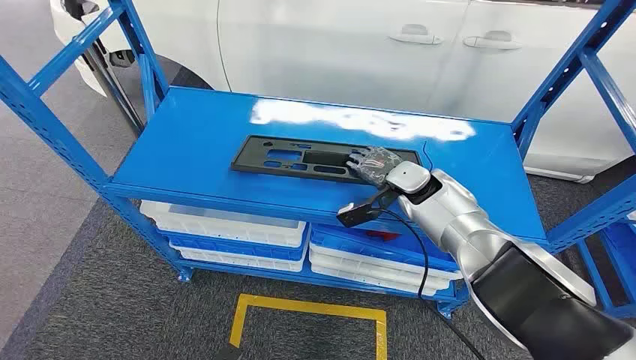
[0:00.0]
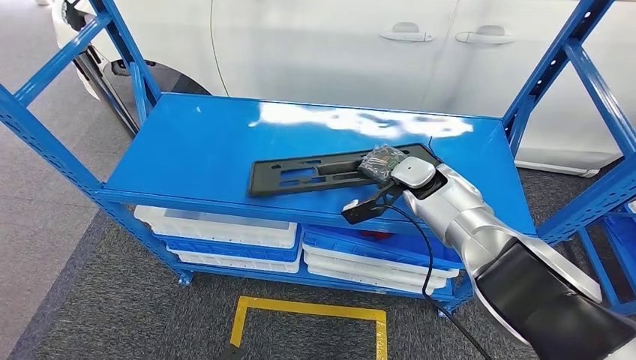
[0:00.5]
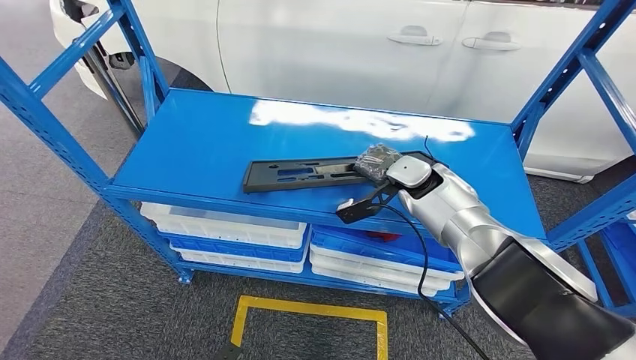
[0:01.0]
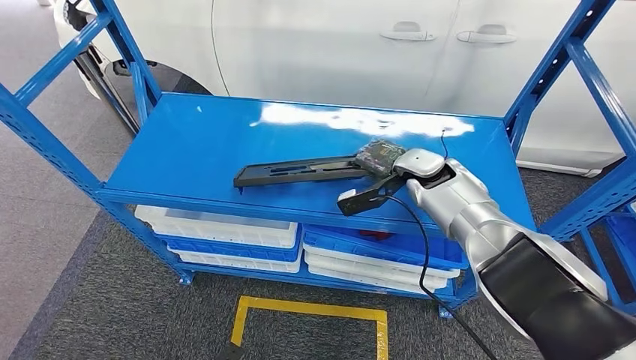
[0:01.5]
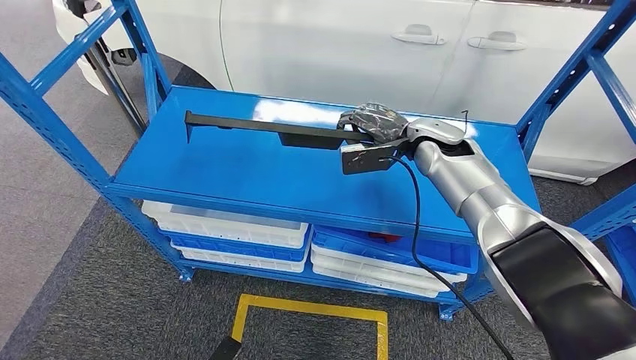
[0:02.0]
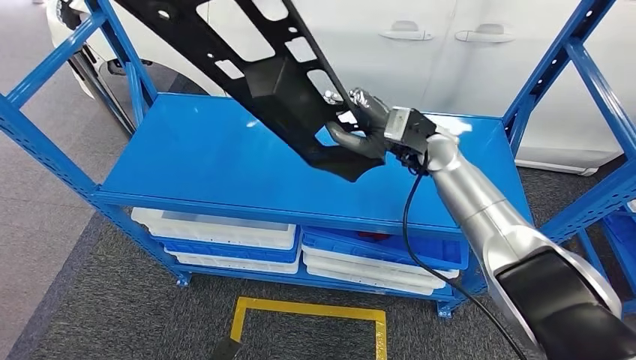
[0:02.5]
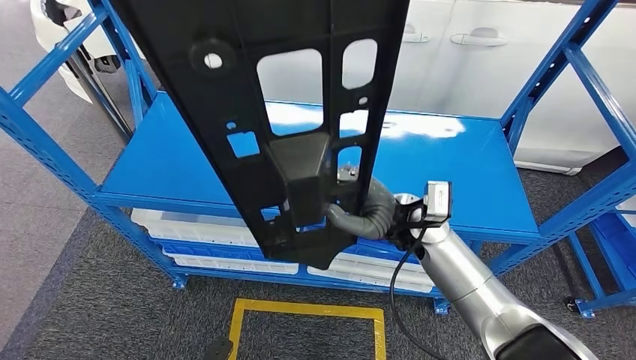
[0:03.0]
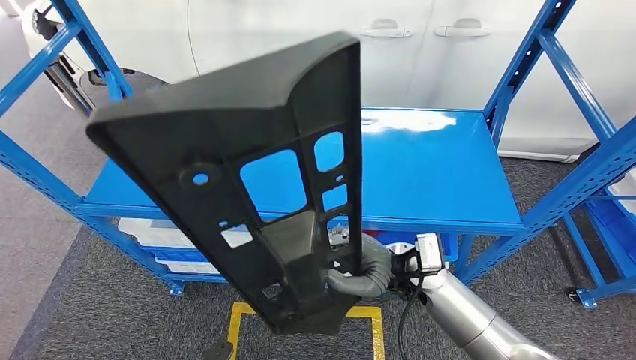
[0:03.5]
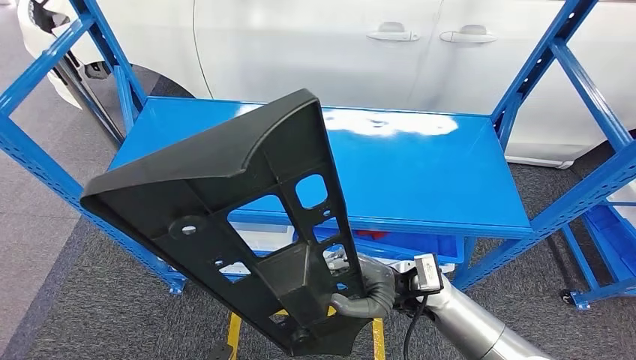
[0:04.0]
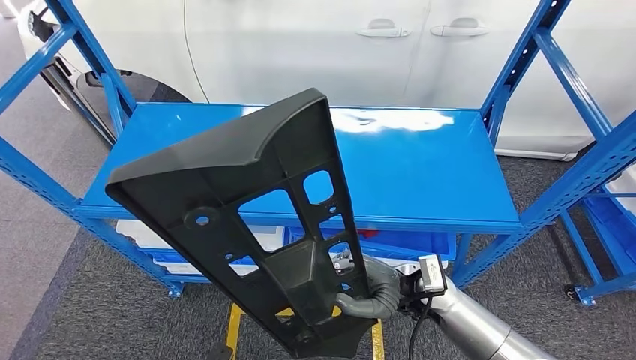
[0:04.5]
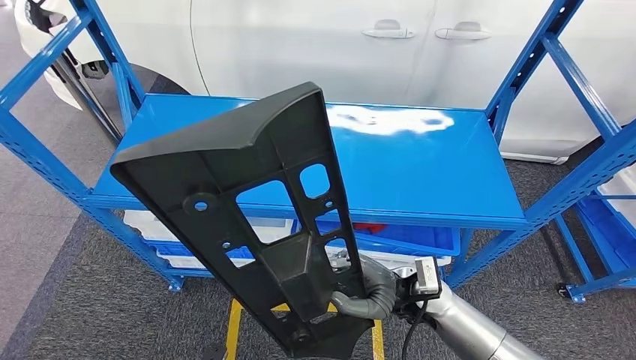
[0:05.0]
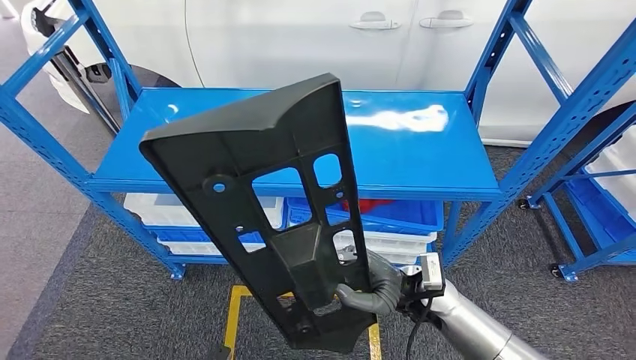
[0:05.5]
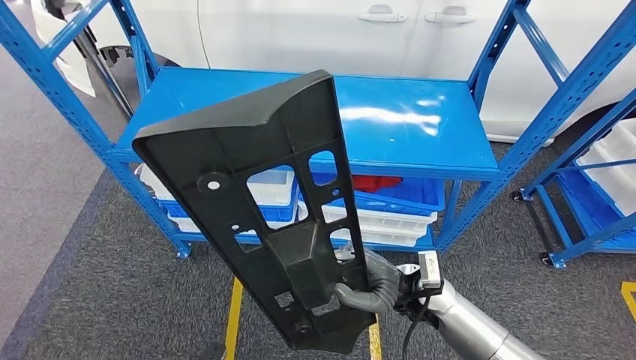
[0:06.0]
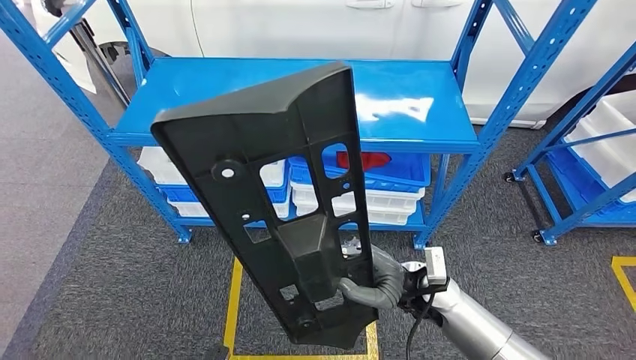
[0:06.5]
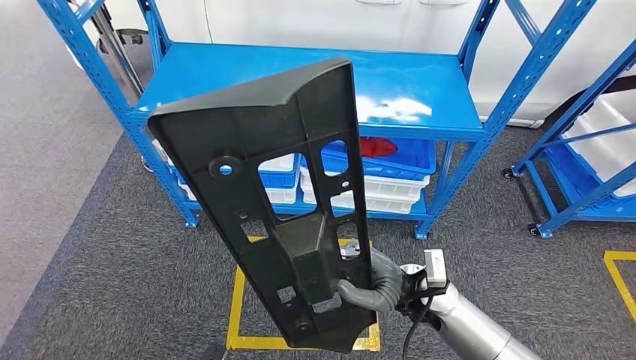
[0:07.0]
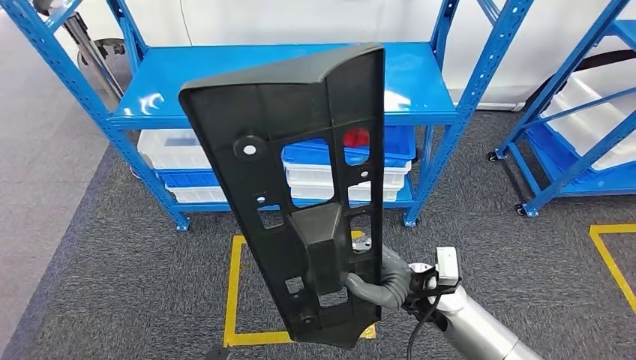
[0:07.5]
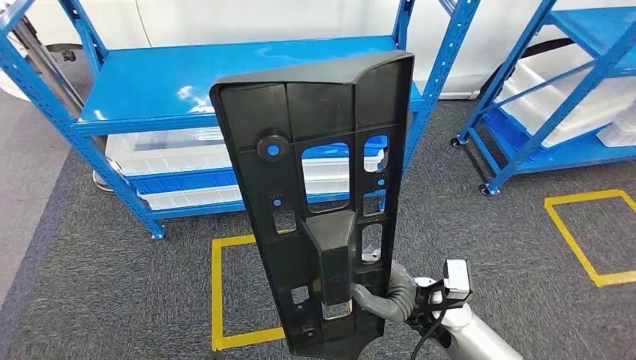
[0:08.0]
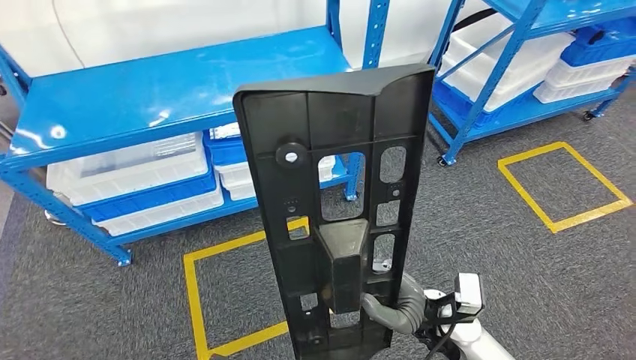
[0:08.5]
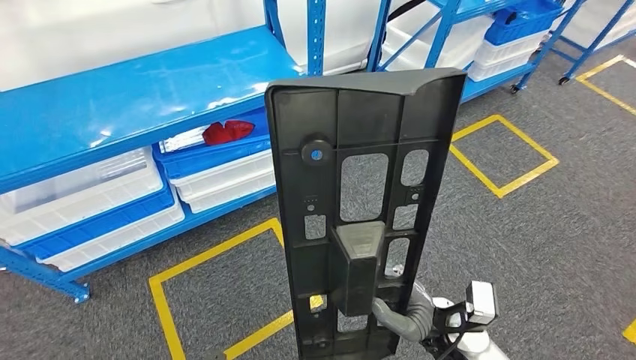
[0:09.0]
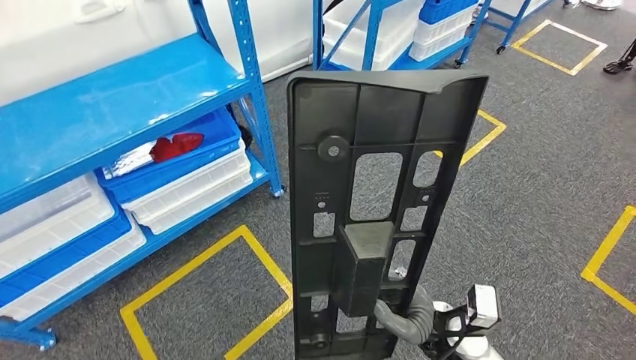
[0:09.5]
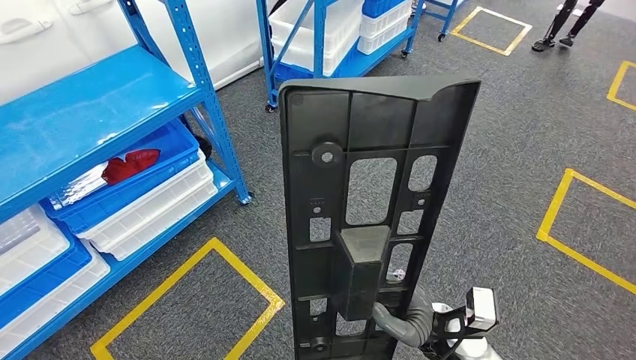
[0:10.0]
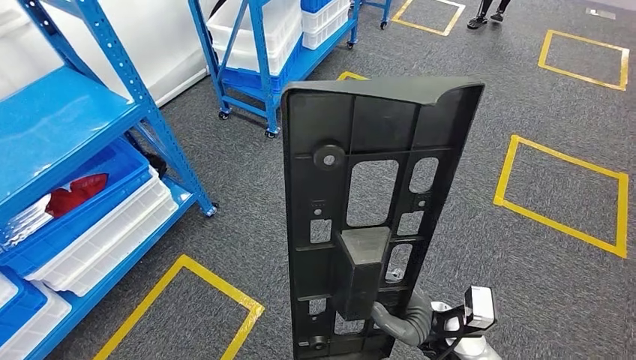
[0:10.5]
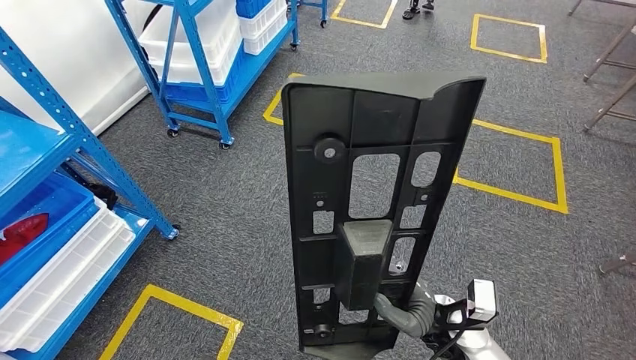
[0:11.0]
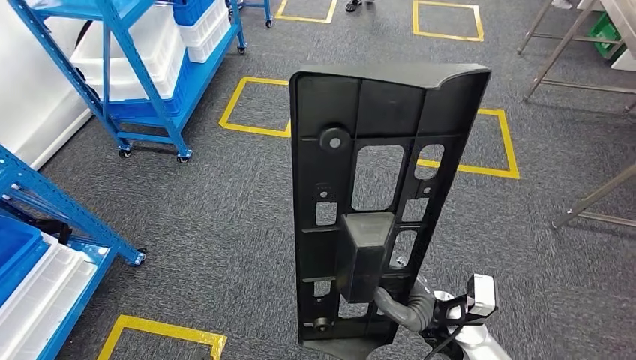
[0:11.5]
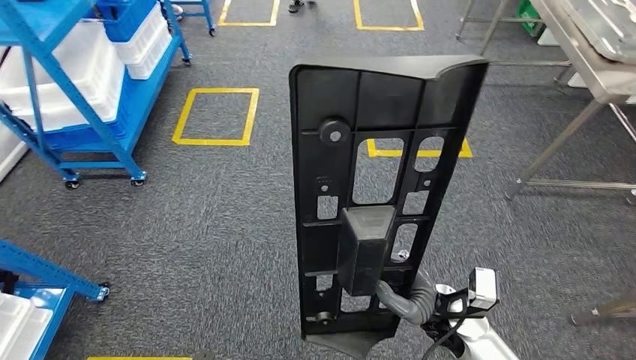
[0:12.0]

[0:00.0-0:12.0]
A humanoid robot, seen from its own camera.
Step, 0:00.0 to 0:03.5: Pick up the large material from the shelf.

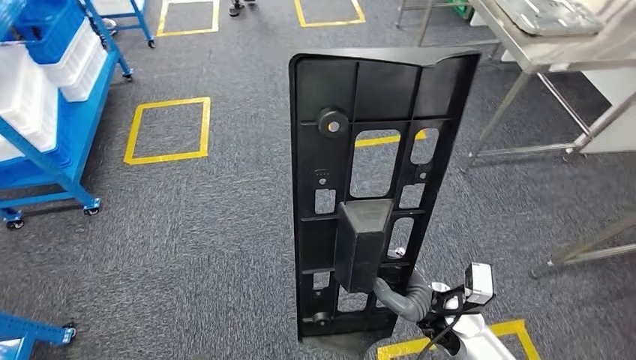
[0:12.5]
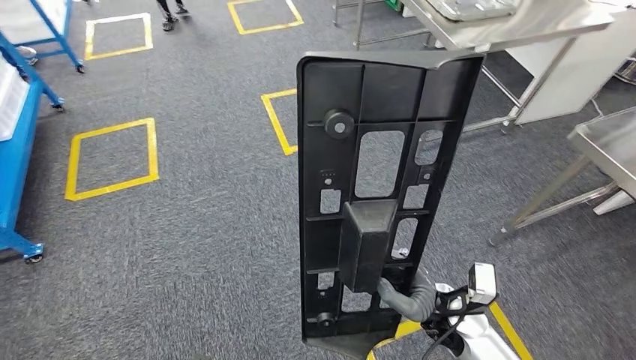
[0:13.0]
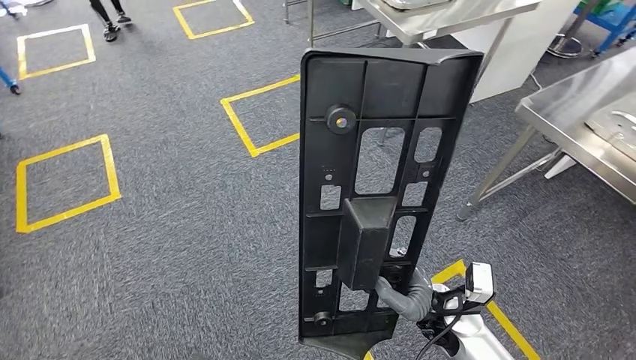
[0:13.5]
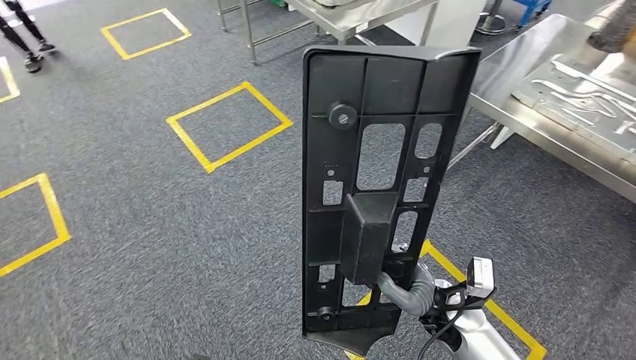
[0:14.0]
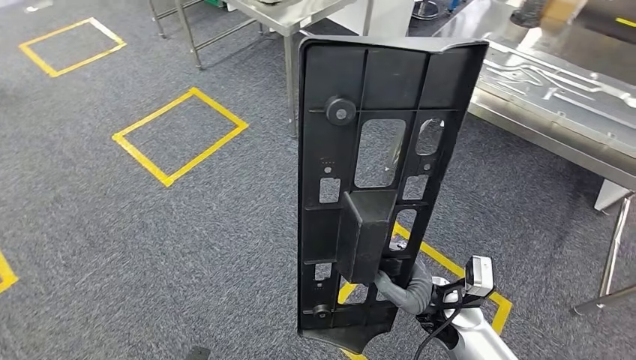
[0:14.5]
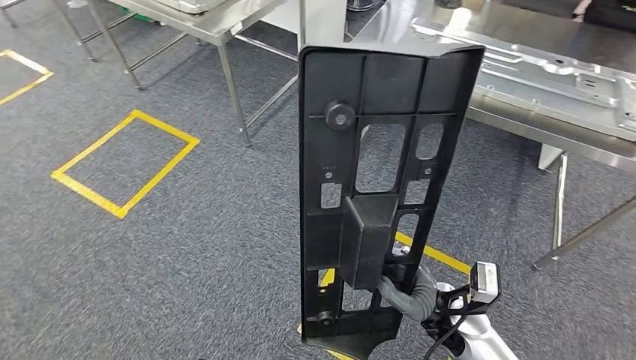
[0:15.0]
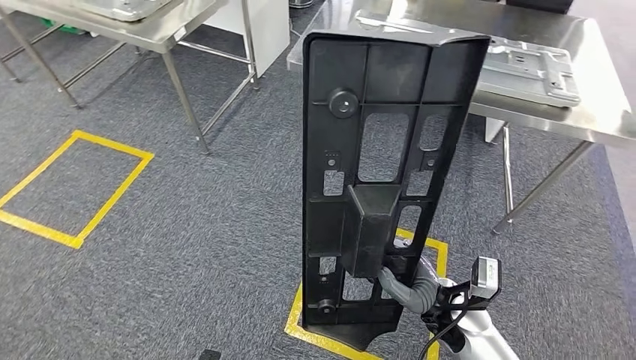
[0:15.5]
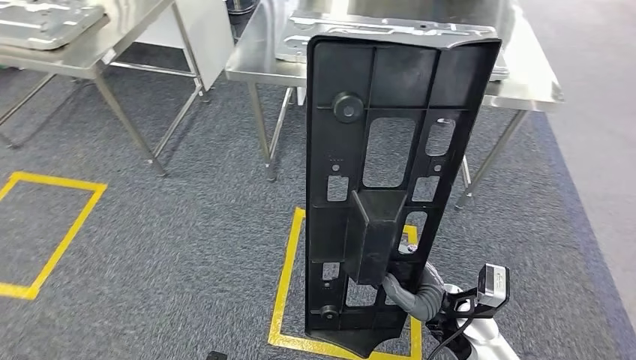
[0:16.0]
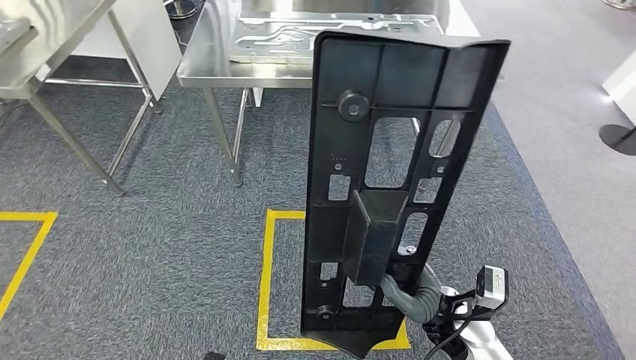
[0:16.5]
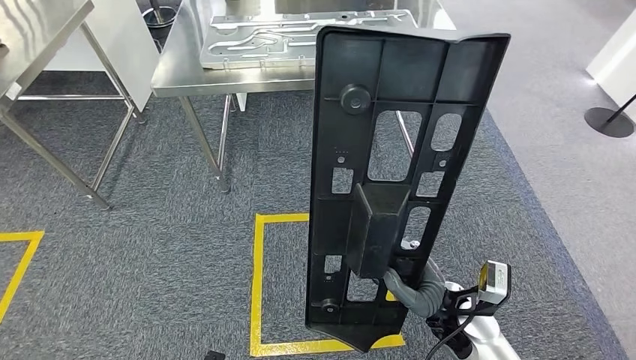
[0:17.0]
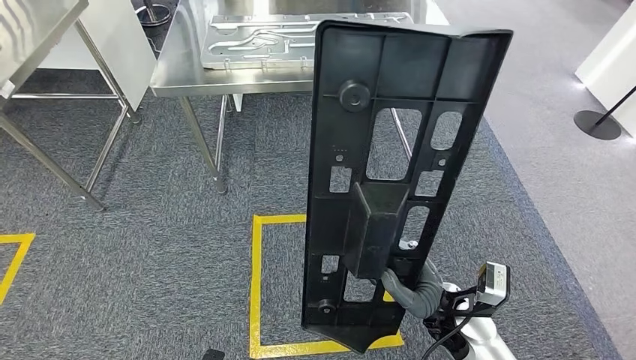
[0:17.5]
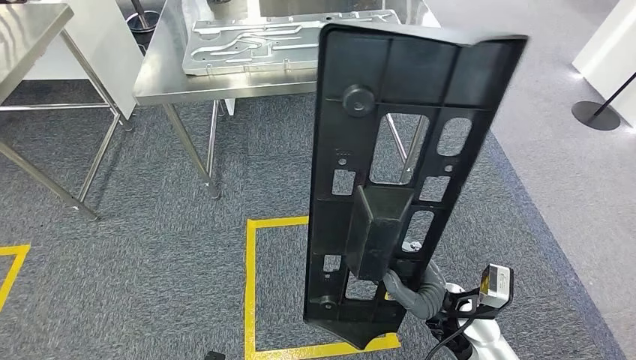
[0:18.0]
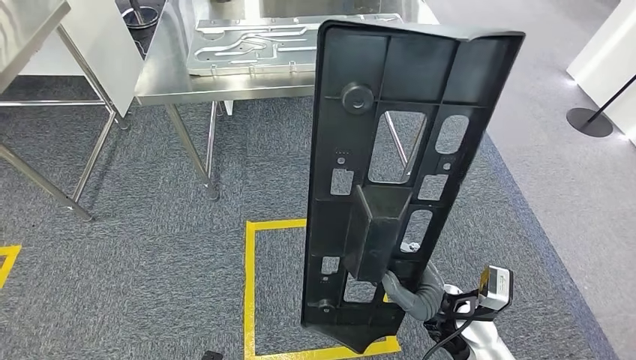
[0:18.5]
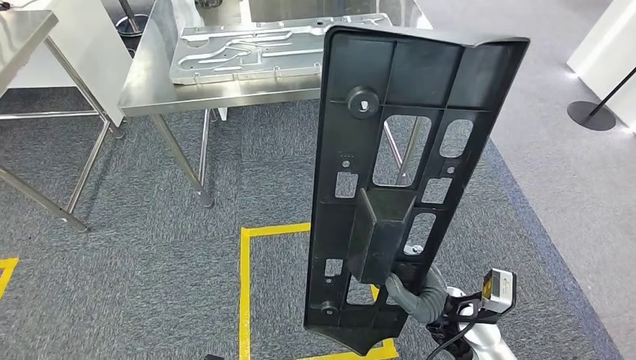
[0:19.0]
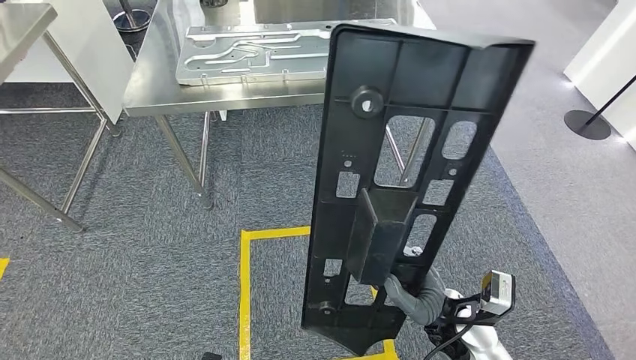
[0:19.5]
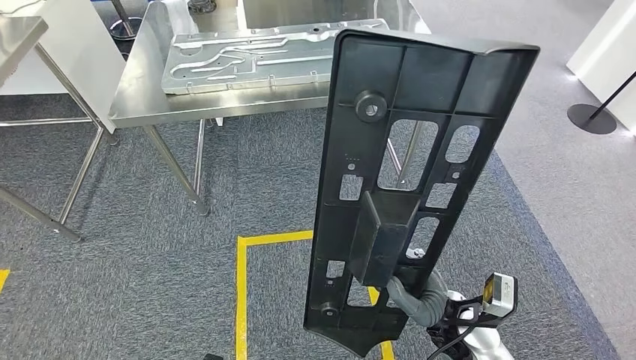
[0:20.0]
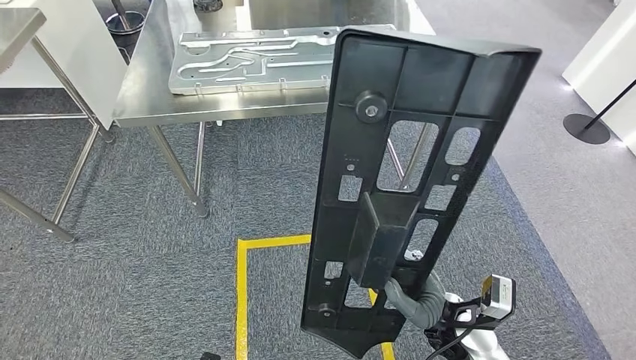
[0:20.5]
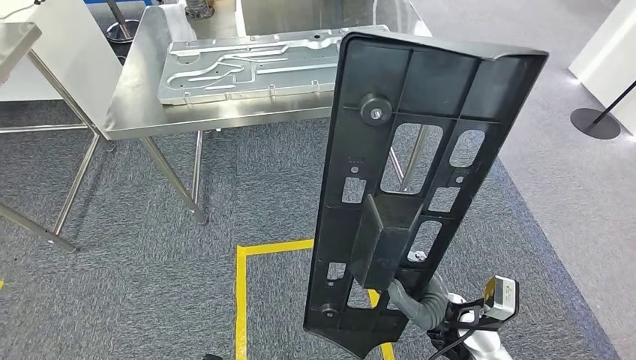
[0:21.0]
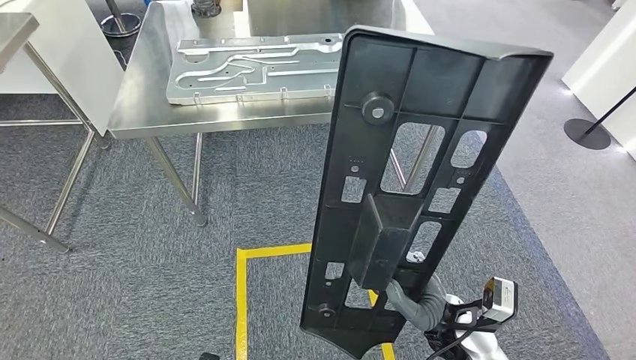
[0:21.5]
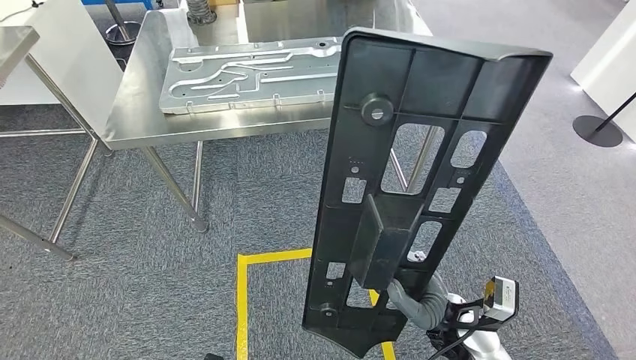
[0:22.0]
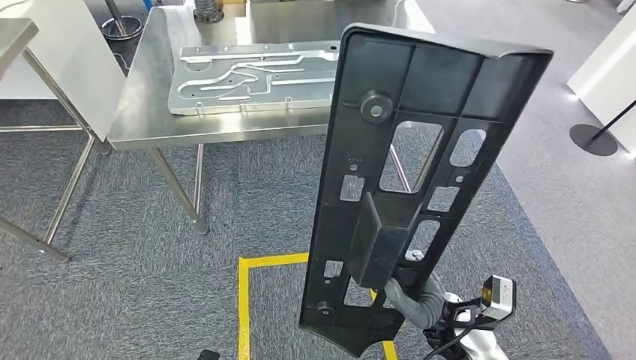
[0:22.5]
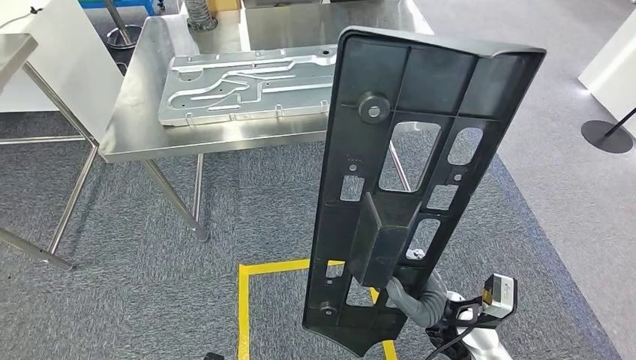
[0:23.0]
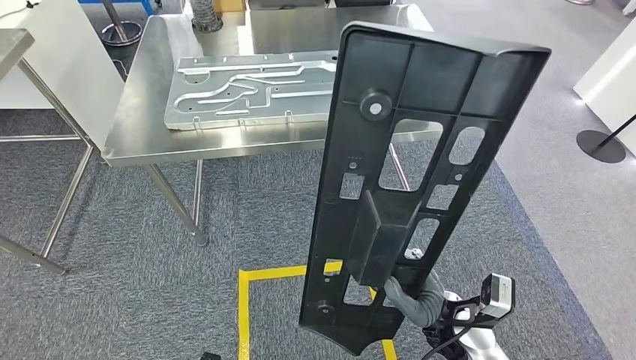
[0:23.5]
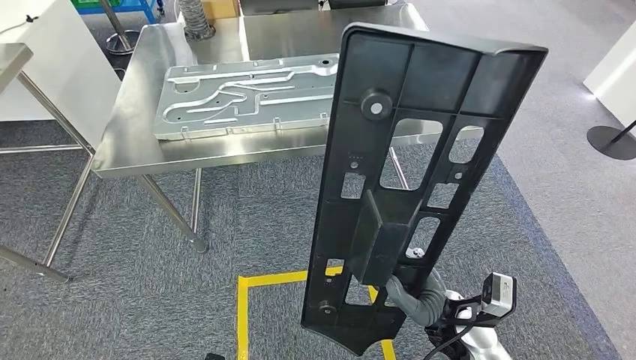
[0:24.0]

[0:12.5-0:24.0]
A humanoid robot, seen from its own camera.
Step, 0:12.5 to 0:22.0: Move the large material to the front of the workbench.
